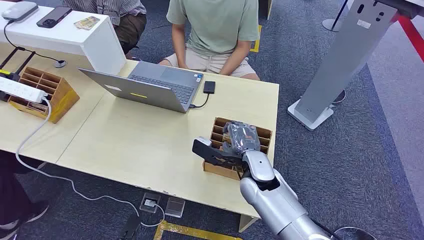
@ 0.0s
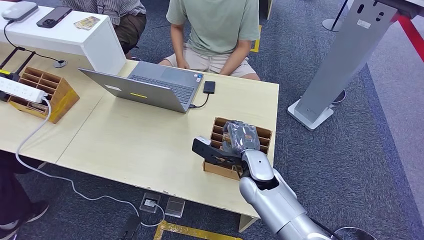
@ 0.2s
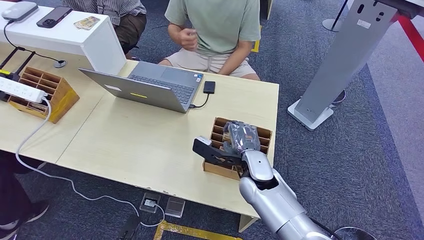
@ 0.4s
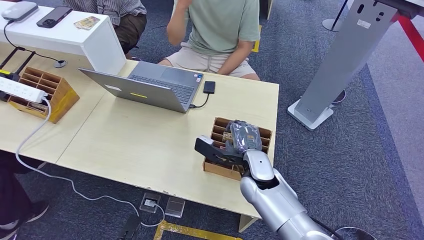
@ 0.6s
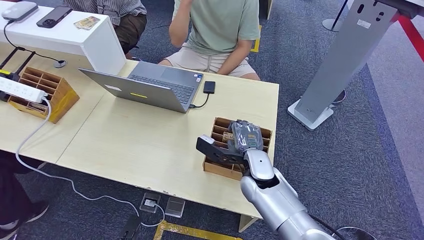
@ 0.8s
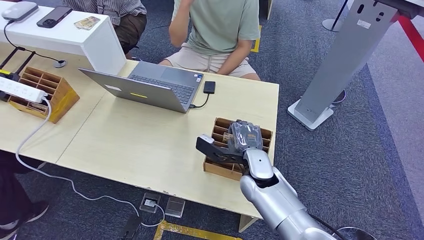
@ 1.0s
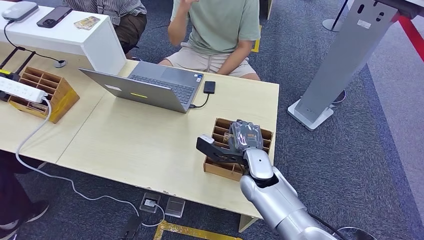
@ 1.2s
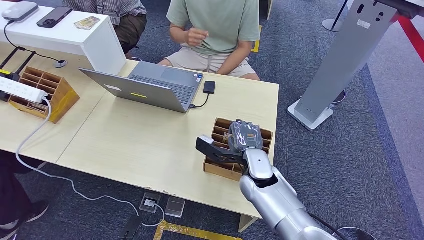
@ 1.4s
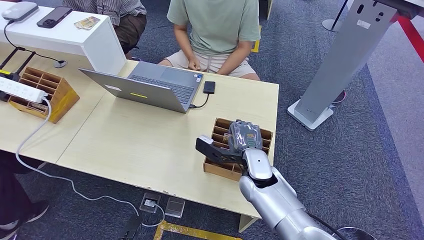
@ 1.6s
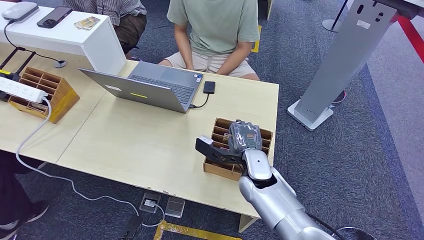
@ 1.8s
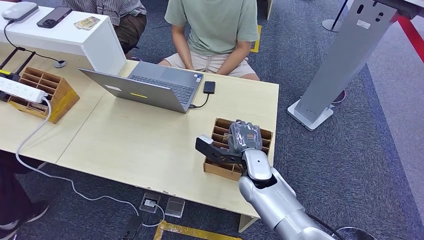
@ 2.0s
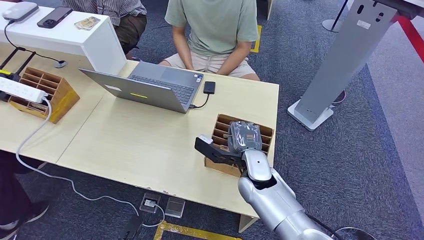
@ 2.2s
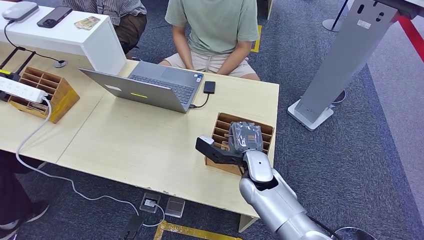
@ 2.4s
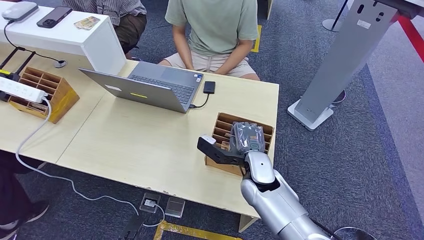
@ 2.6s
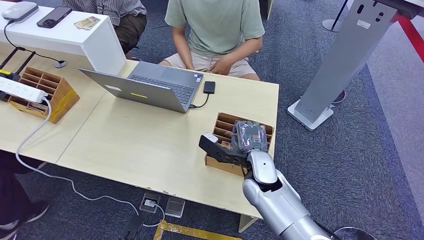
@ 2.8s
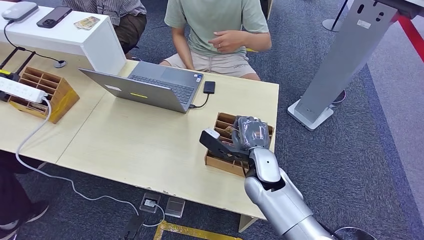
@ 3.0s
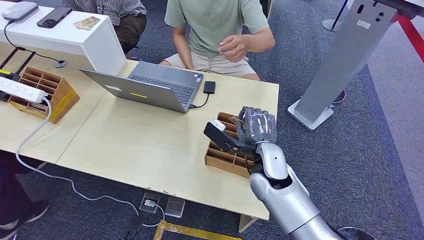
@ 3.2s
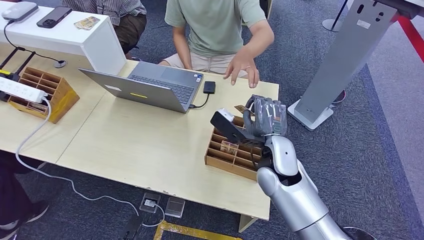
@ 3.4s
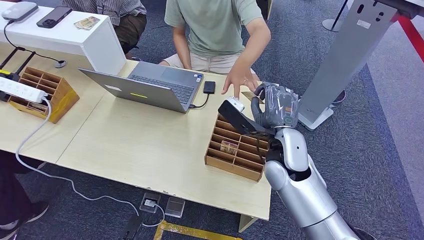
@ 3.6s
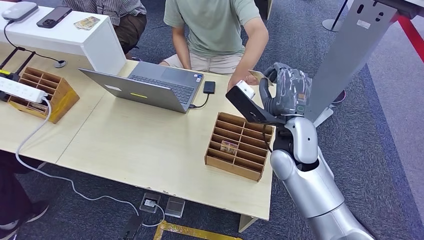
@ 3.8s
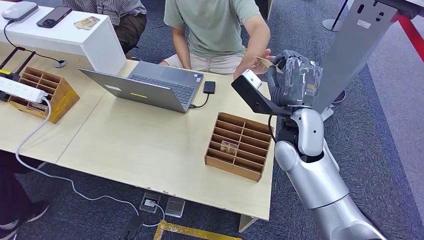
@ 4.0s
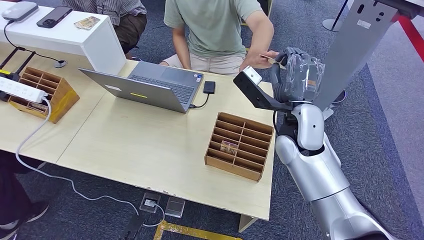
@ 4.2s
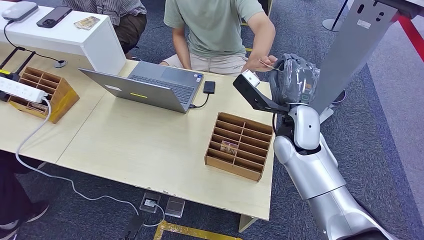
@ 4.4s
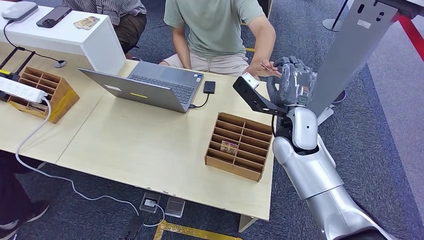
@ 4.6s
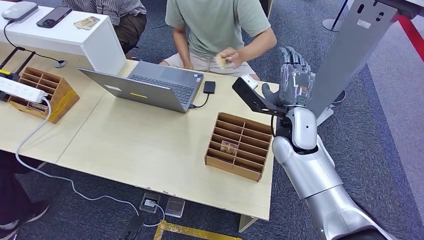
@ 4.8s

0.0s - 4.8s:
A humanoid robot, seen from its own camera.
Step, 0.0s - 2.6s: Pick up the room card from the card holder.
Step, 3.4s - 4.8s: Hand the room card to the target.
1.6s - 3.2s: The hands move only a little.
3.2s - 4.8s: The right hand goes roughly 10 cm upward and forward.
